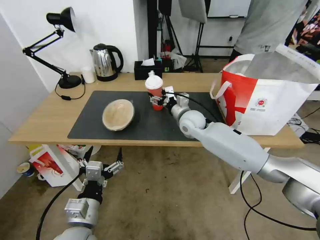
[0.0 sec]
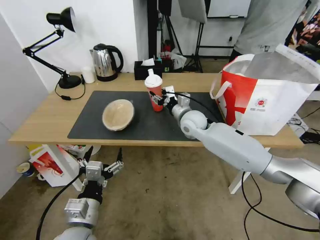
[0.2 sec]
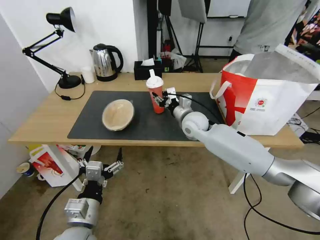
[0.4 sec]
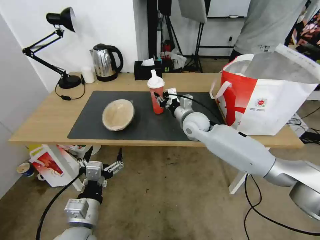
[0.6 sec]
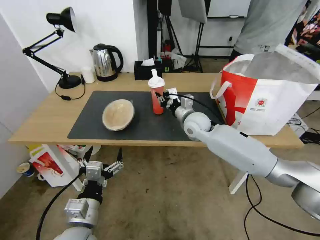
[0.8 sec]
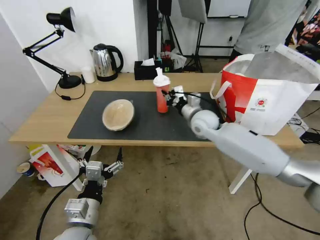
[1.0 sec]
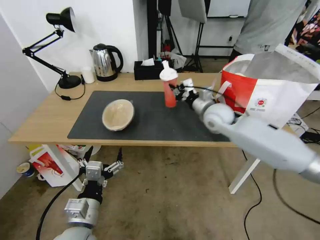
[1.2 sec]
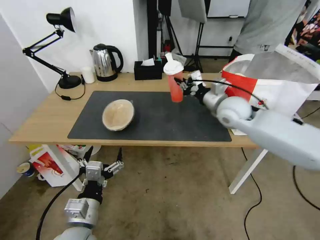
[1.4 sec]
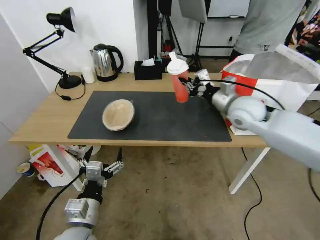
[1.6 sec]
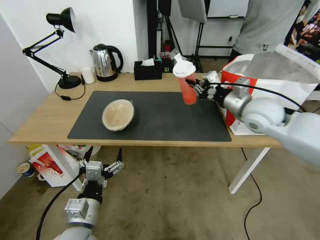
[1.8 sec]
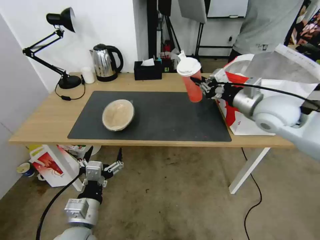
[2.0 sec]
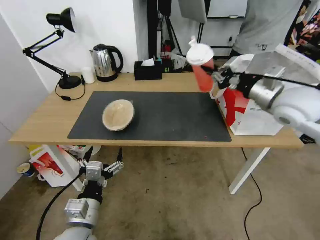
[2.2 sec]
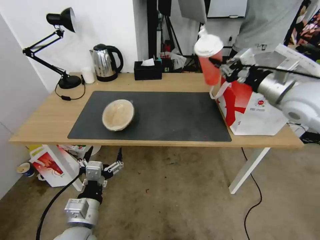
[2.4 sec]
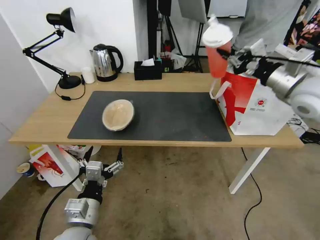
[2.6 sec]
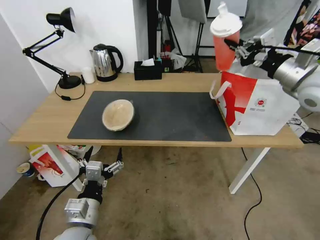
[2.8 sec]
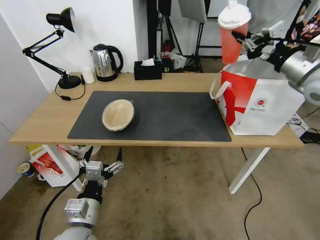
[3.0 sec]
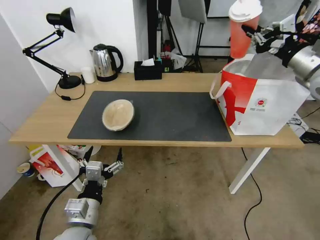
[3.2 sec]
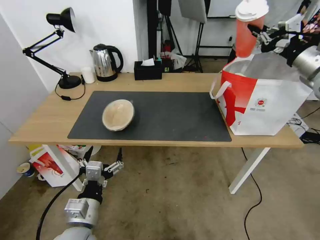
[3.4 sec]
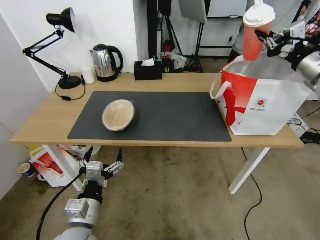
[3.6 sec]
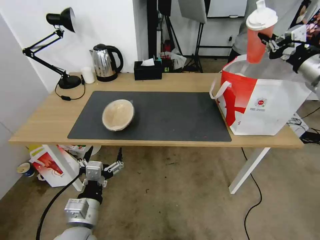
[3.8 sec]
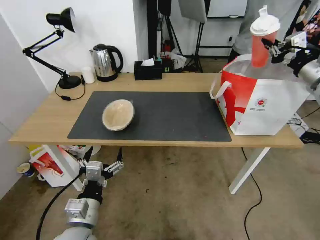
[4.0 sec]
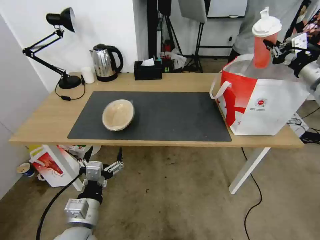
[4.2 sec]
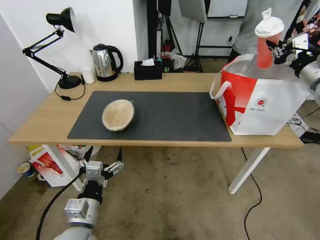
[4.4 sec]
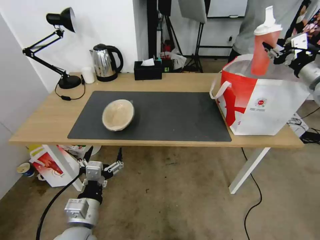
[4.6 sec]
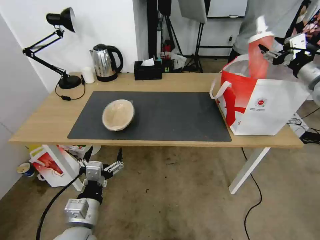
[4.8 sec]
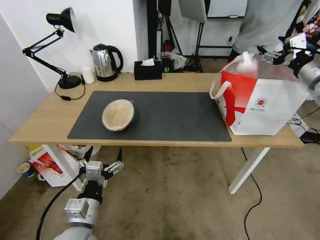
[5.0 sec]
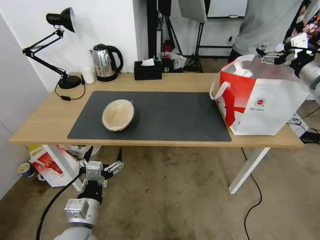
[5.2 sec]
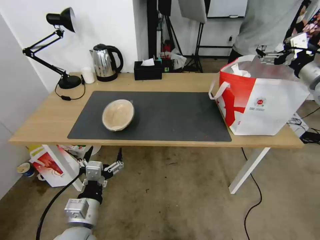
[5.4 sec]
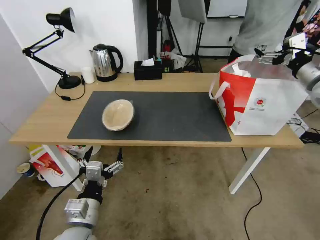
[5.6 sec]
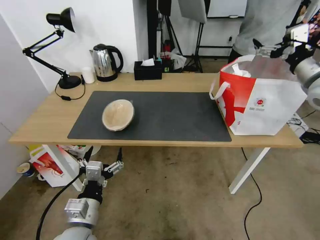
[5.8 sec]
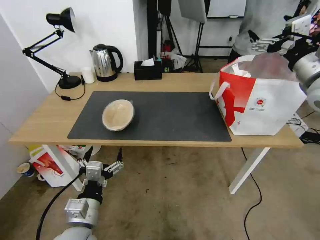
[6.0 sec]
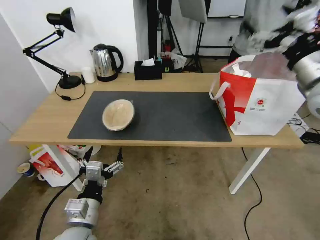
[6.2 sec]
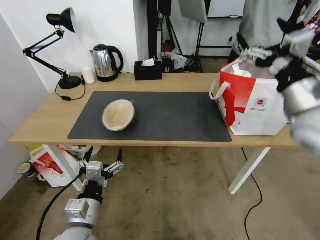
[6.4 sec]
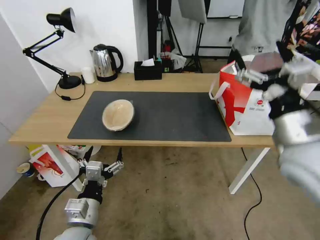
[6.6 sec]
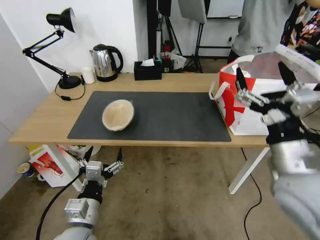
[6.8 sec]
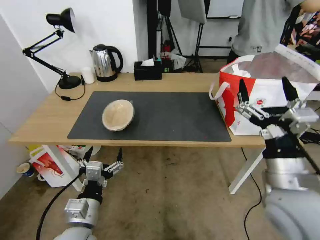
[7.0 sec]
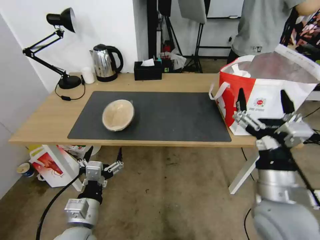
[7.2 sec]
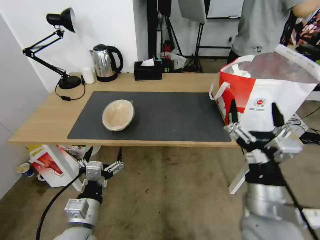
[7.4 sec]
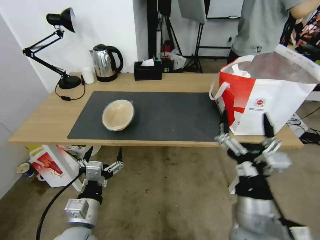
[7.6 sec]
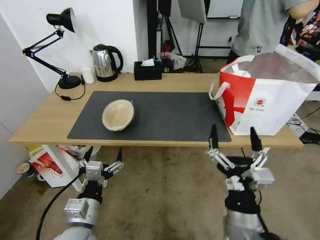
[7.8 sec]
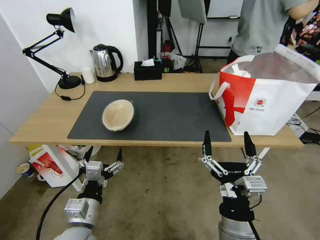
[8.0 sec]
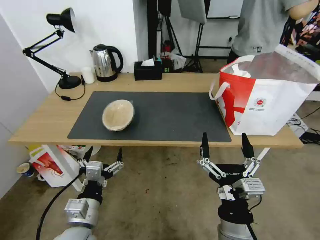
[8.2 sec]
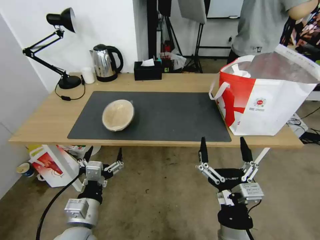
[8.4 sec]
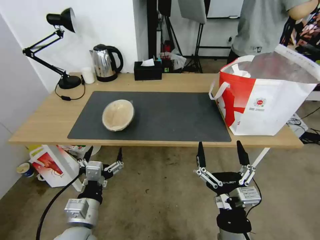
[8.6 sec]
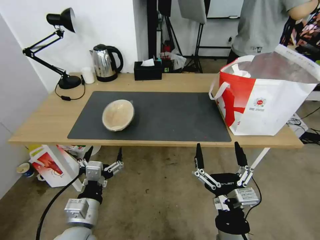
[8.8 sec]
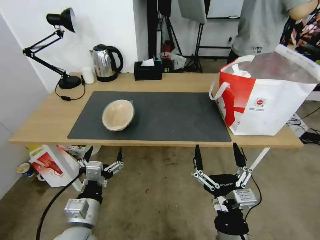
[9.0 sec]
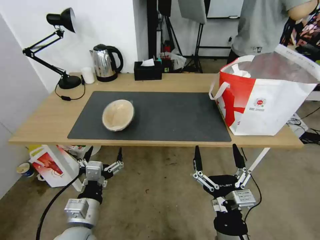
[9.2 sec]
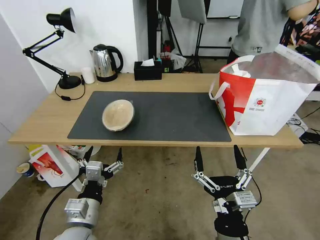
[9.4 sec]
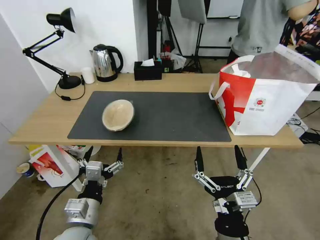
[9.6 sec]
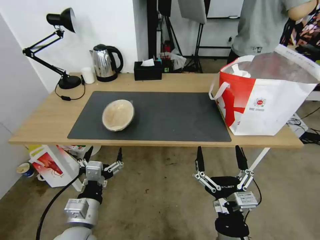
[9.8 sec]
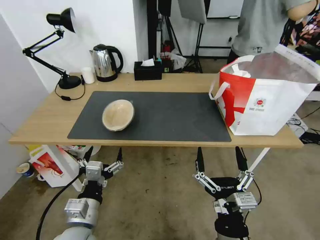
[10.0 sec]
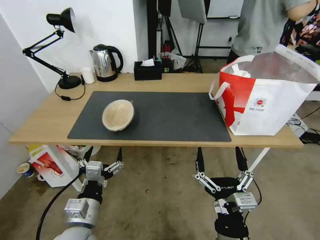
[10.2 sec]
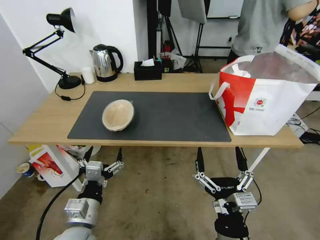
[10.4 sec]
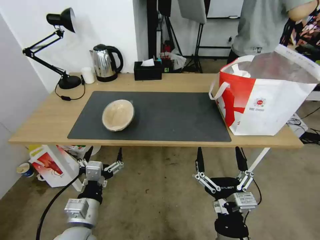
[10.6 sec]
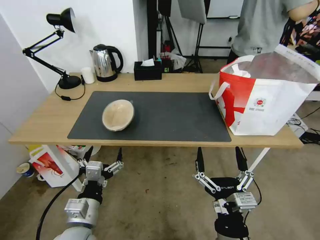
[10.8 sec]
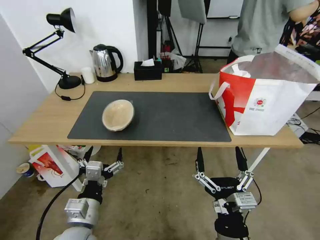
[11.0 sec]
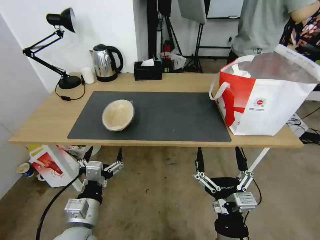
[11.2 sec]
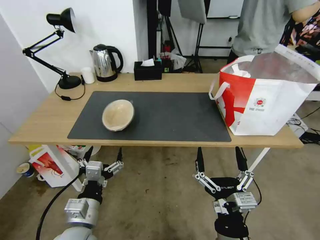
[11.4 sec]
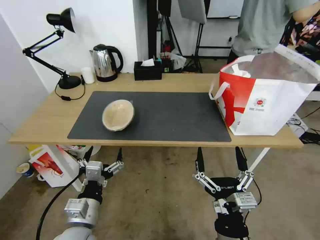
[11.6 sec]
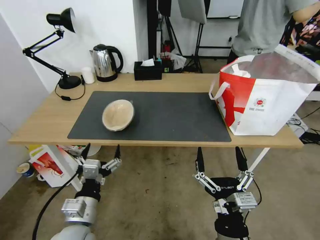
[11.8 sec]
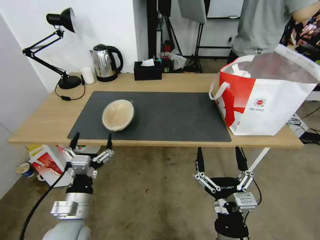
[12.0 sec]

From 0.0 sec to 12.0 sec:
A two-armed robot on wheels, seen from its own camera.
Task of the whole recording: Pick up the trash from the table and place it into the takeout bag.
From 0.0 sec to 1.6 sec: The right gripper shifts roughly 20 cm to the right, upward and backward, and closes up.
From 1.6 sec to 3.0 sec: The right gripper heads to the right and upward, covering some 15 cm.
From 3.0 sec to 4.4 sec: The right gripper is displaced to the right by about 10 cm.
From 4.4 sec to 6.0 sec: The right gripper shifts some 10 cm to the left, and opens up.
From 6.0 sec to 7.6 sec: The right gripper travels backward, downward and to the left by about 40 cm.
From 7.6 sec to 9.0 sec: The right gripper is displaced downward by about 5 cm.
From 9.0 sec to 10.4 sec: Both grippers stay about where they are.
From 10.4 sec to 12.0 sec: The grippers make only small movements.

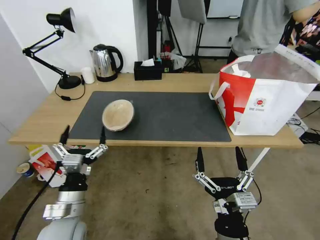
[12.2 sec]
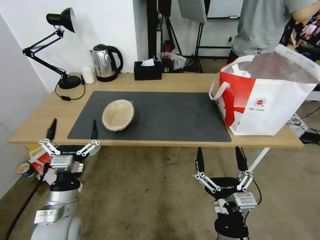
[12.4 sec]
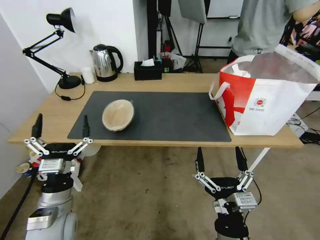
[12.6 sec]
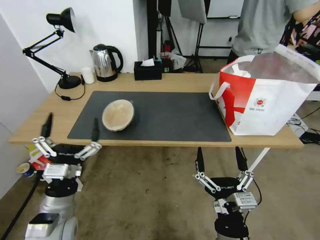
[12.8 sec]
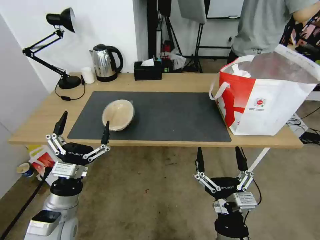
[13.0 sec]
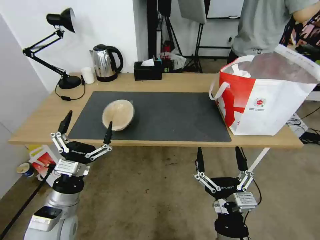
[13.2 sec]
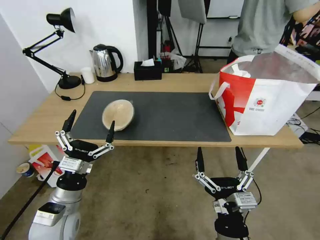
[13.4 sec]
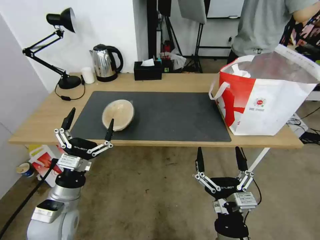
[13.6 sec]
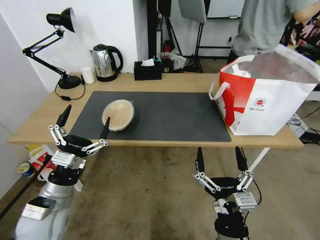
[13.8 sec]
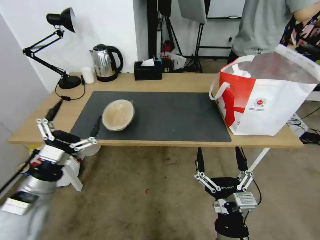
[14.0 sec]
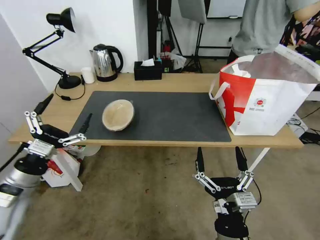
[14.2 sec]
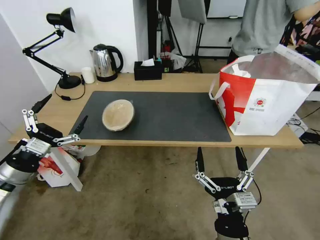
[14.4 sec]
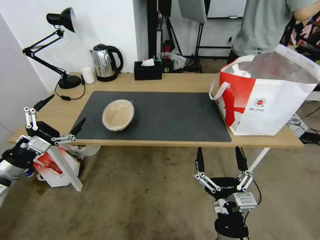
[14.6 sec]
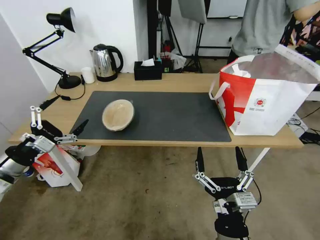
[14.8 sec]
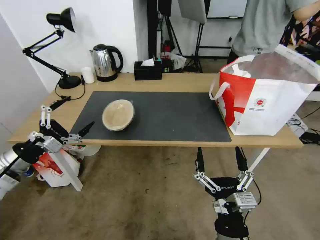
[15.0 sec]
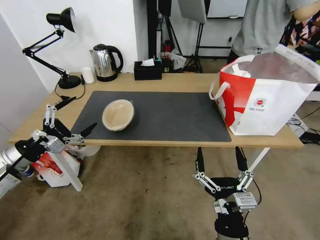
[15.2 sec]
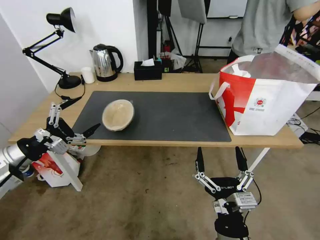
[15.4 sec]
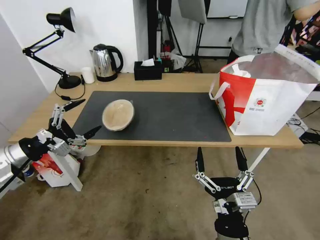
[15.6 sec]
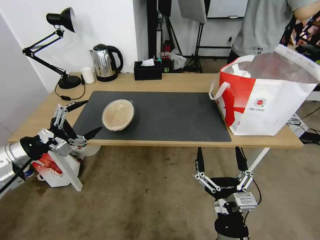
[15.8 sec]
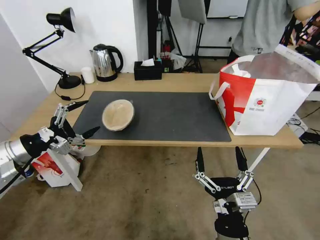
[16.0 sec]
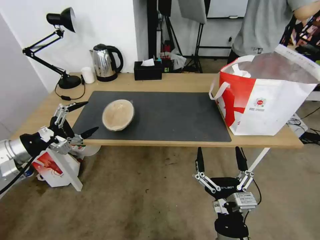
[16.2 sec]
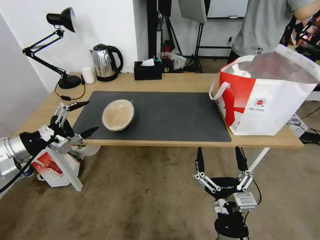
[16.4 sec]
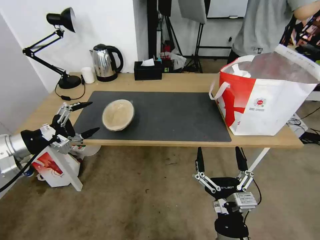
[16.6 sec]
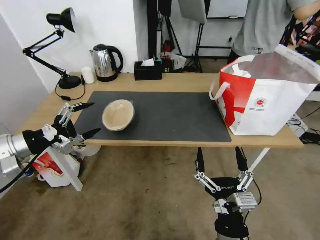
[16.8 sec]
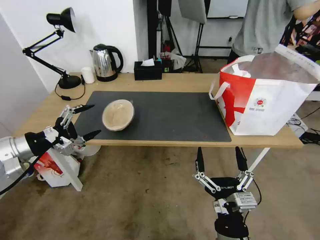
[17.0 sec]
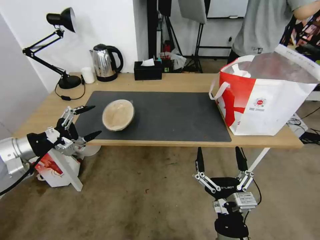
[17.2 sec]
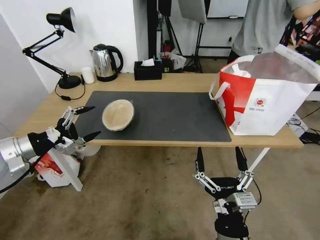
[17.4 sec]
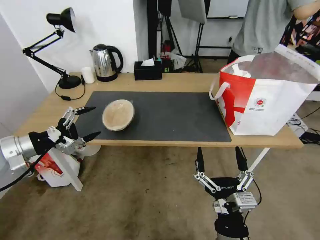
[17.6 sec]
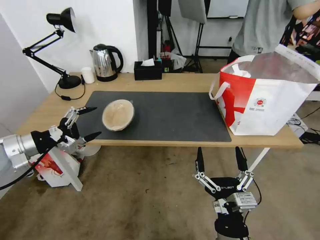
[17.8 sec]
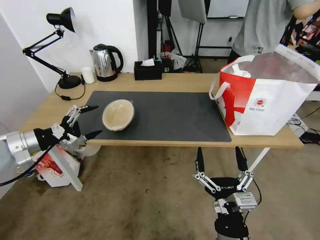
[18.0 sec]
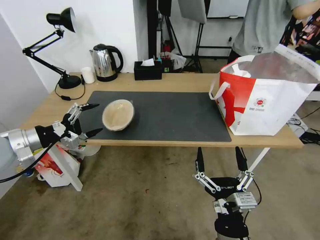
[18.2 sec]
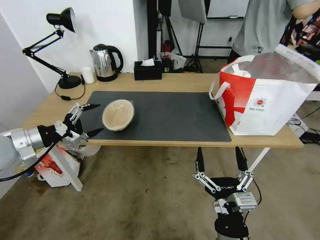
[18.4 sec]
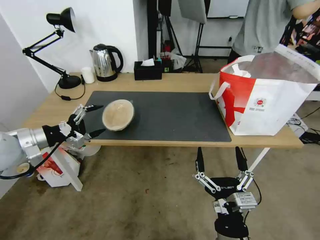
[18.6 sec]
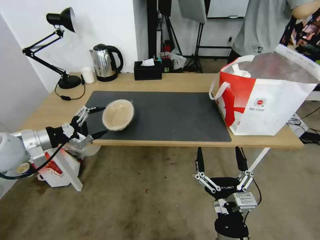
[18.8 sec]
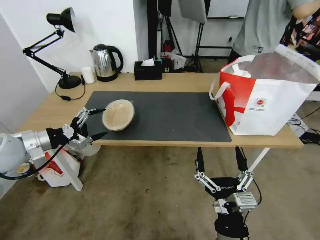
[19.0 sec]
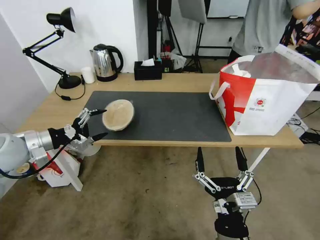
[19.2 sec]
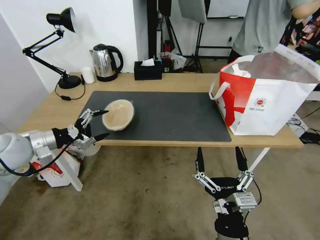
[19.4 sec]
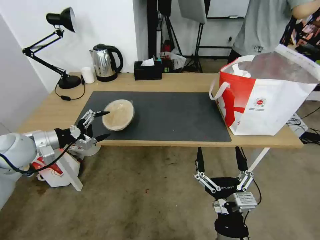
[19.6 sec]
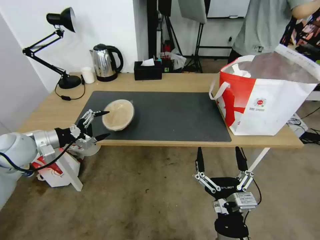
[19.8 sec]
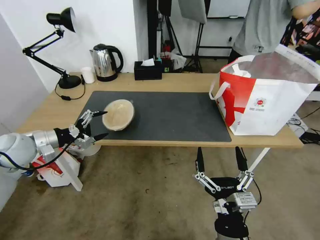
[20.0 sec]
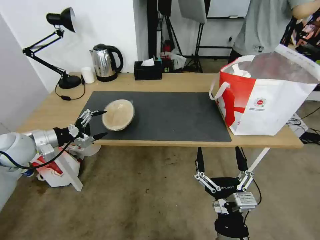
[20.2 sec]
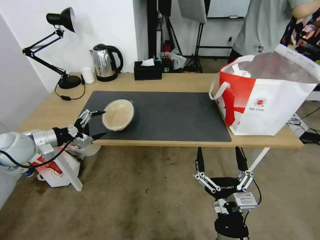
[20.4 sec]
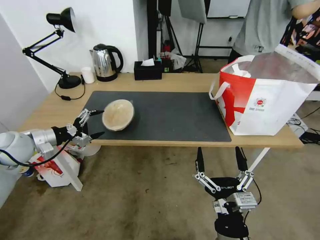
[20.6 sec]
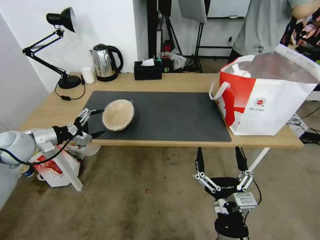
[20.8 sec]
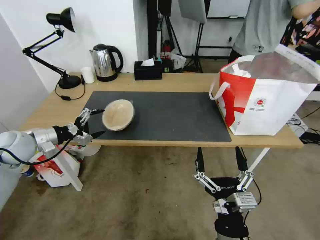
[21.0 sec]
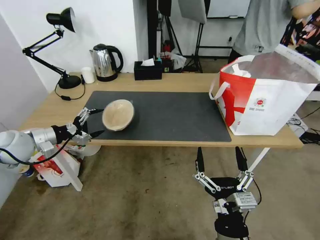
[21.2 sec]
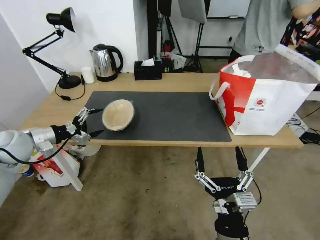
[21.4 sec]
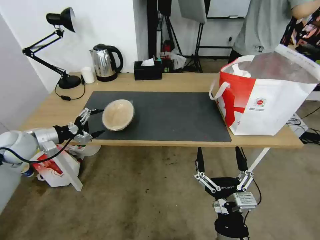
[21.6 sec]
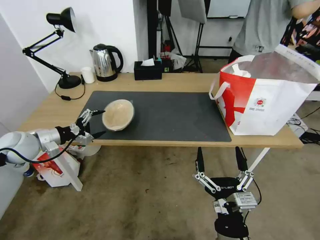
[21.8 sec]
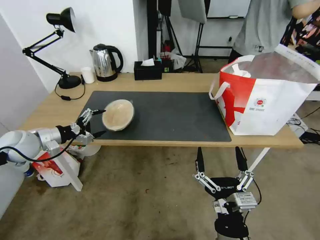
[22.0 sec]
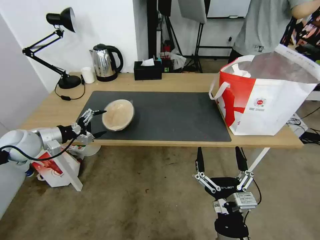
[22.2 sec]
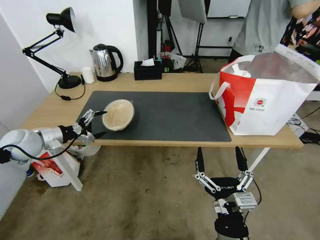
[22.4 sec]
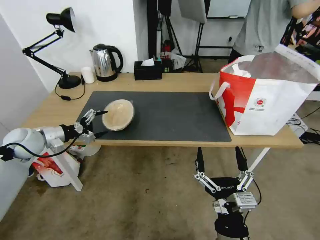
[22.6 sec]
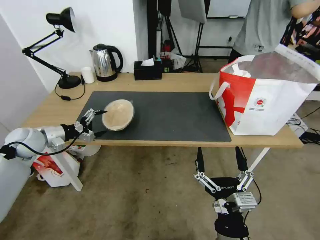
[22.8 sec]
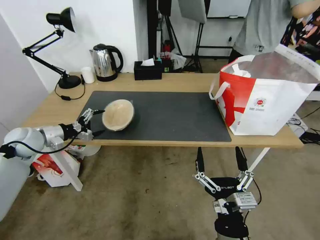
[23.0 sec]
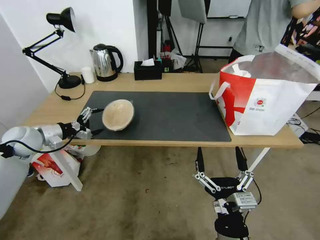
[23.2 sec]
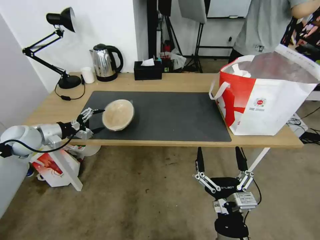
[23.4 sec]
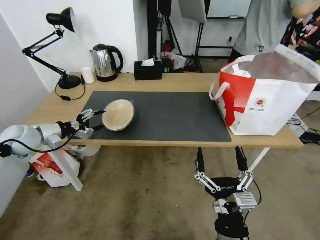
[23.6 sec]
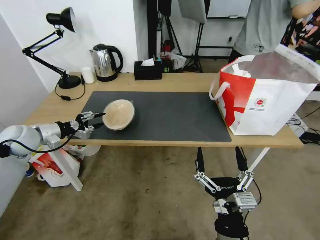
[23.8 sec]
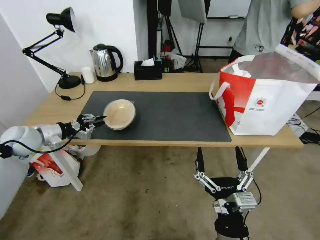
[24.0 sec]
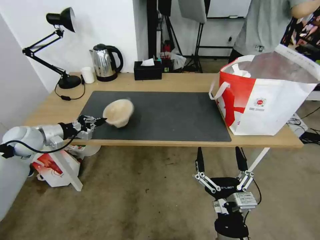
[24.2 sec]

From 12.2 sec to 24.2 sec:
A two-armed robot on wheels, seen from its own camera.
Task of the whole recording: Pick up the trash from the table and place it into the takeout bag.
From 12.2 sec to 13.8 sec: The left gripper ends up roughly 5 cm from where it was.
From 13.8 sec to 15.2 sec: The left gripper shifts about 15 cm to the left and upward.
From 15.2 sec to 16.6 sec: The left gripper moves upward, about 5 cm.
From 16.6 sec to 18.2 sec: The grippers make only small movements.
From 18.2 sec to 19.8 sec: The left gripper shifts by roughly 5 cm.
From 19.8 sec to 22.6 sec: The grippers make only small movements.
From 22.6 sec to 24.2 sec: The left gripper closes.
